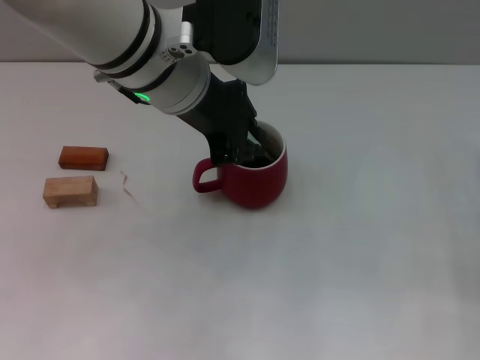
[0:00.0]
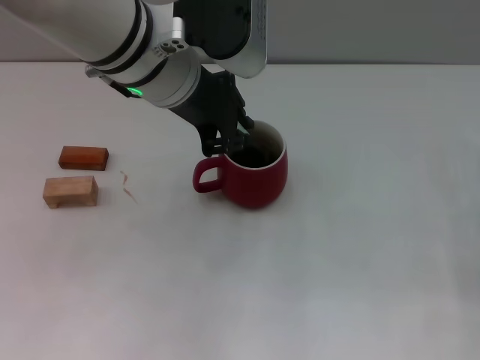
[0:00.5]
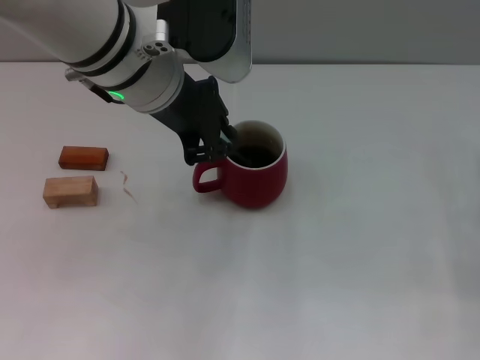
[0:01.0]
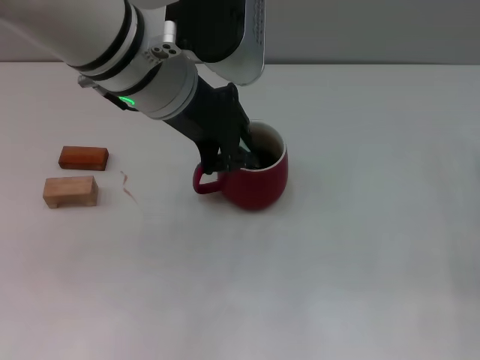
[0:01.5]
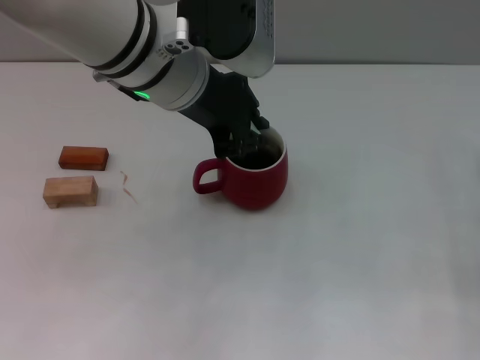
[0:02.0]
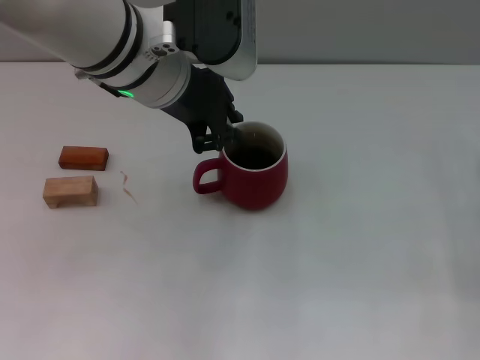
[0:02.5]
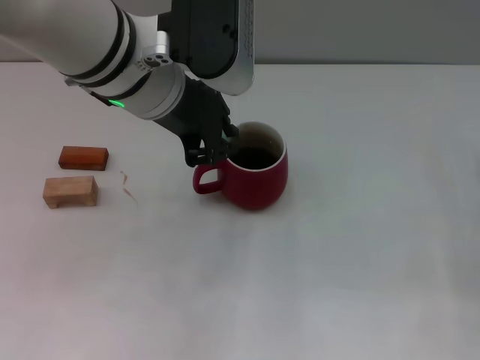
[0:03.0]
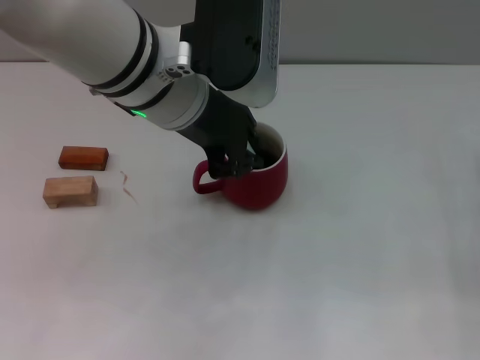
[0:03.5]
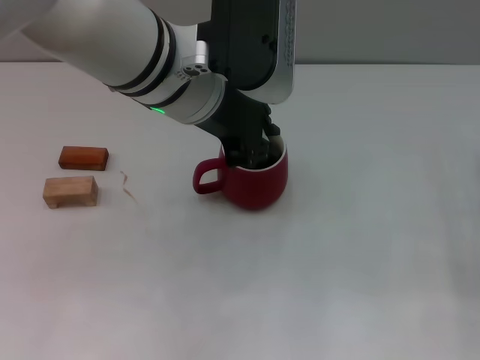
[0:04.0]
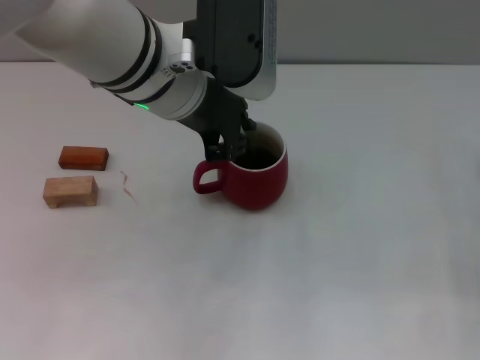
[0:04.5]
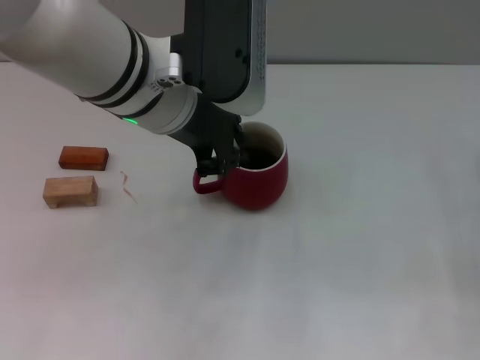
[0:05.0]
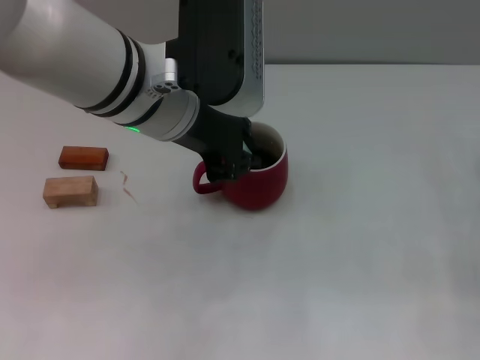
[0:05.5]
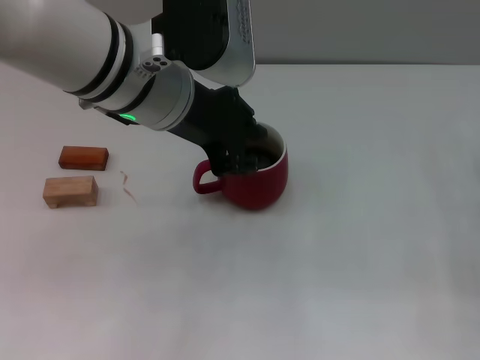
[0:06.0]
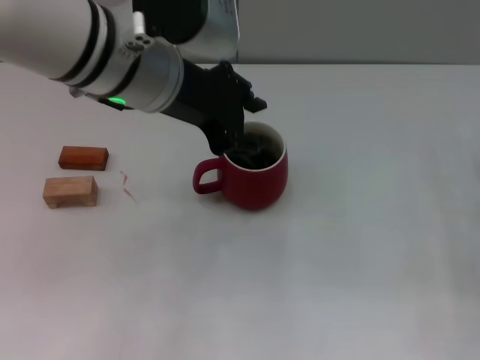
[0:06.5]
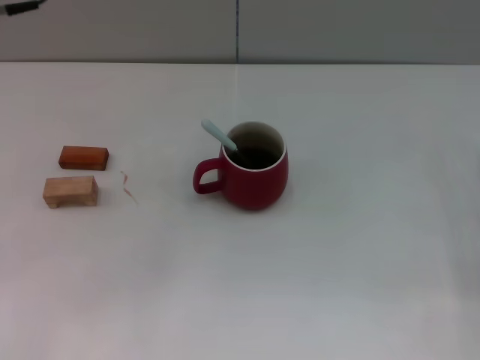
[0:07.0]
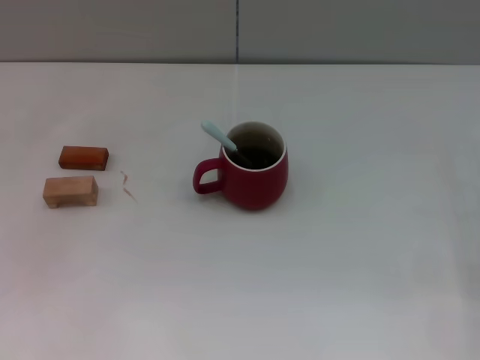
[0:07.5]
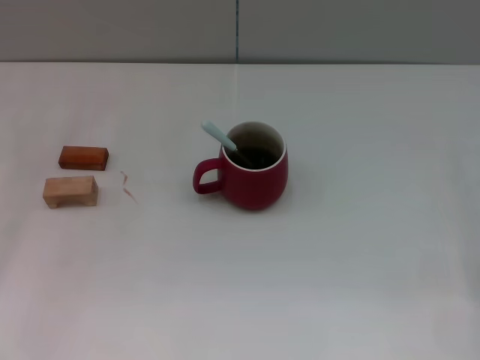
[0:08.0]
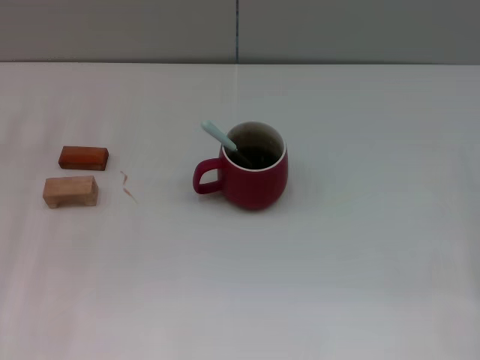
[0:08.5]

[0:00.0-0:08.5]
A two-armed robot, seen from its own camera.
Task of the whole recording: Move the red cup to the center, lift the blue spoon, stir it three times in the cup, and put the spoon into the cup.
Step, 0:00.0 to 0:06.5: Stir the coffee in the cup with the left gripper.
0:00.0 to 0:04.0: There are only small adjustments of the grippers.
0:04.0 to 0:06.5: The left gripper opens up.
0:06.5 to 0:08.5: The left gripper is displaced to the left and downward by roughly 25 cm.

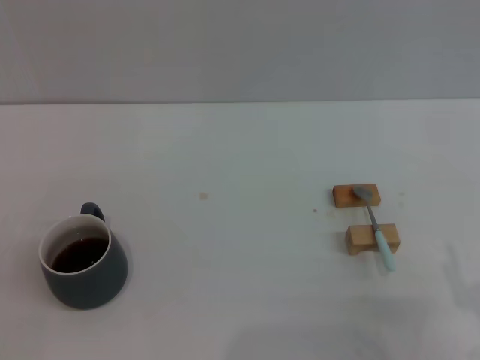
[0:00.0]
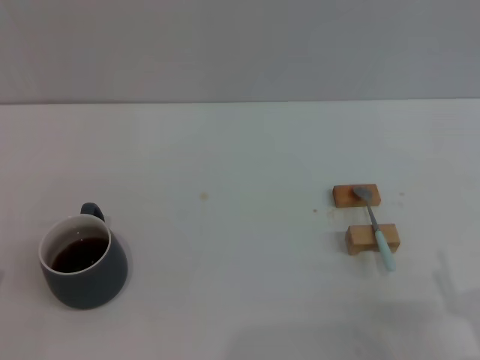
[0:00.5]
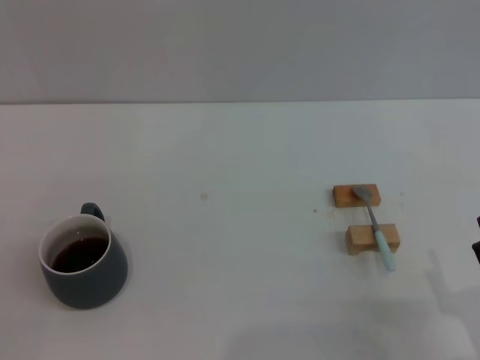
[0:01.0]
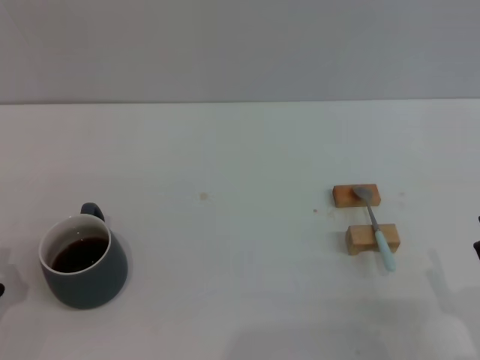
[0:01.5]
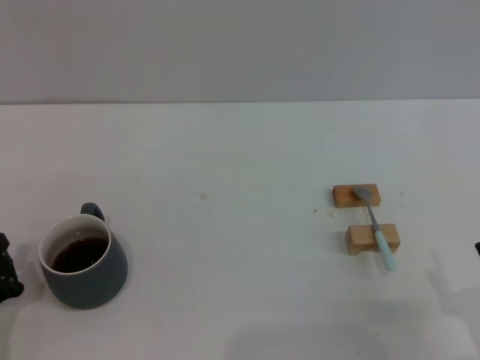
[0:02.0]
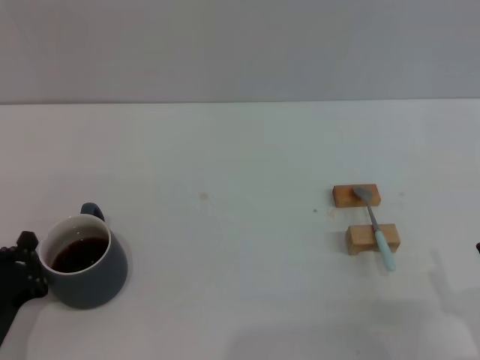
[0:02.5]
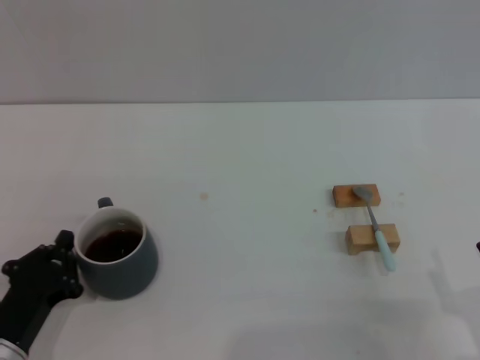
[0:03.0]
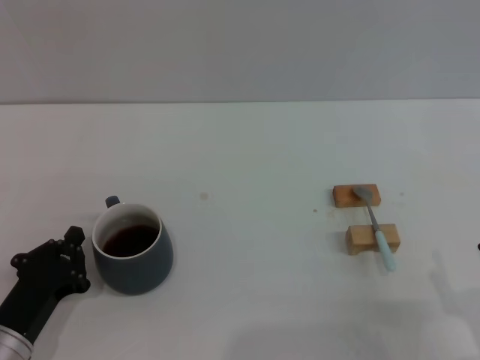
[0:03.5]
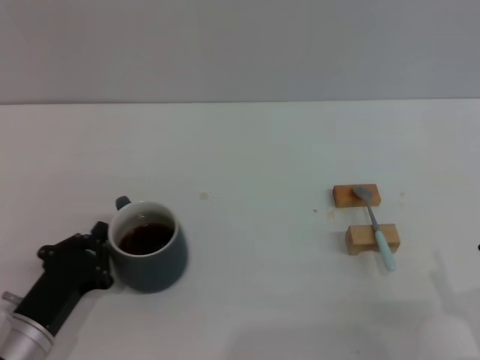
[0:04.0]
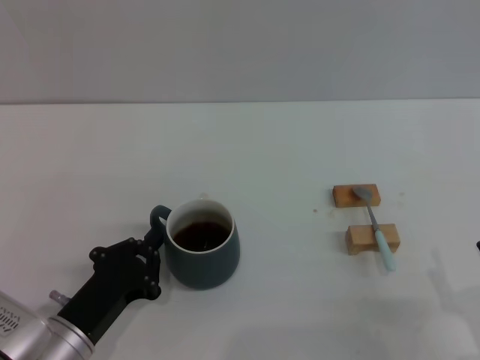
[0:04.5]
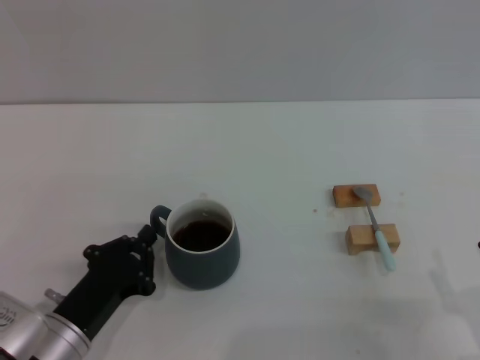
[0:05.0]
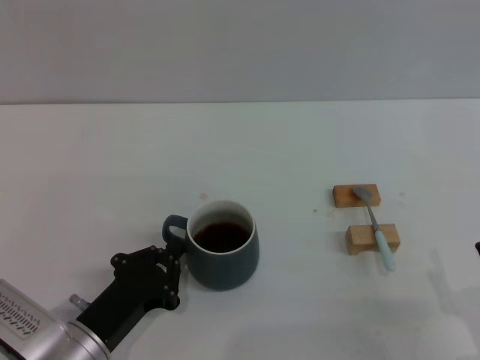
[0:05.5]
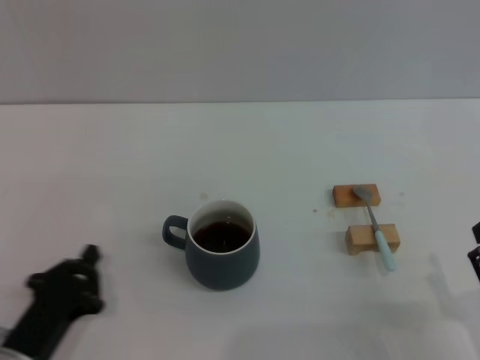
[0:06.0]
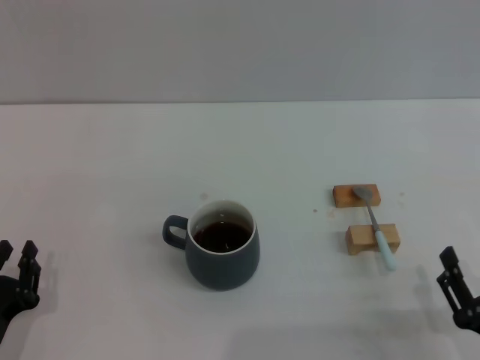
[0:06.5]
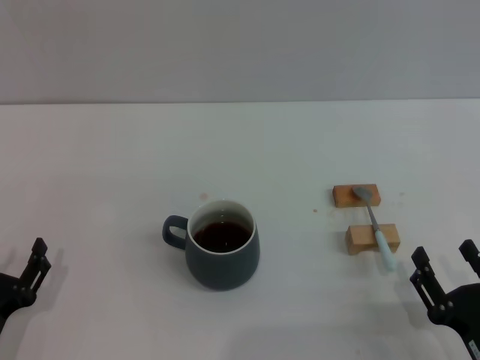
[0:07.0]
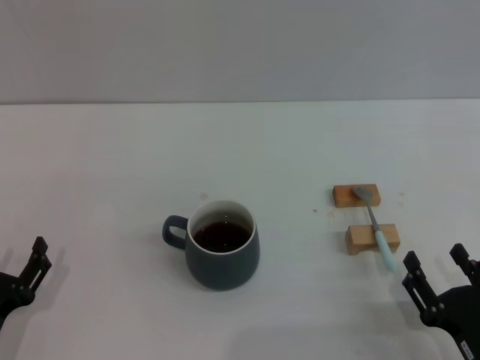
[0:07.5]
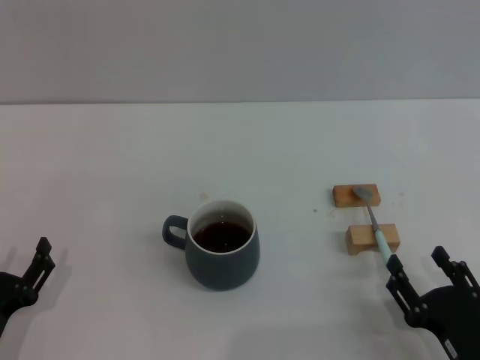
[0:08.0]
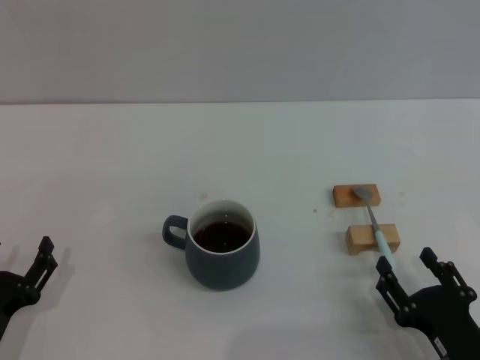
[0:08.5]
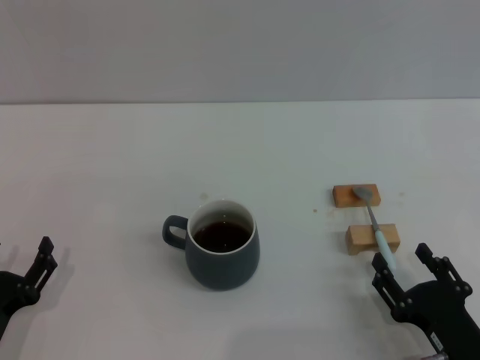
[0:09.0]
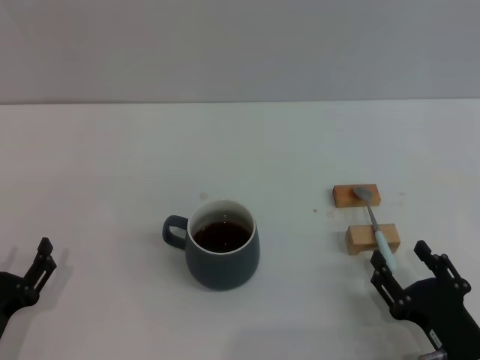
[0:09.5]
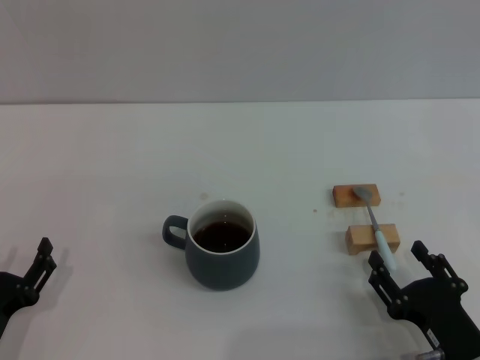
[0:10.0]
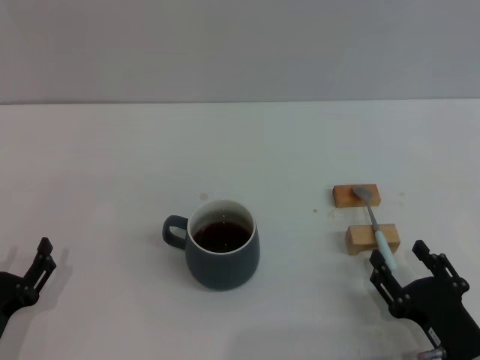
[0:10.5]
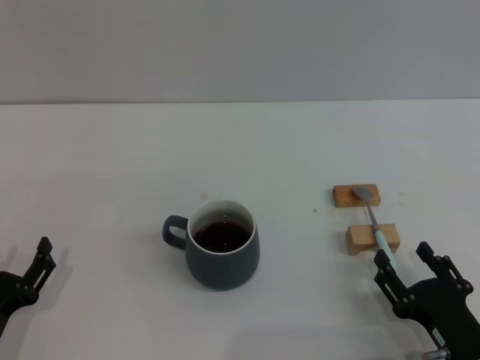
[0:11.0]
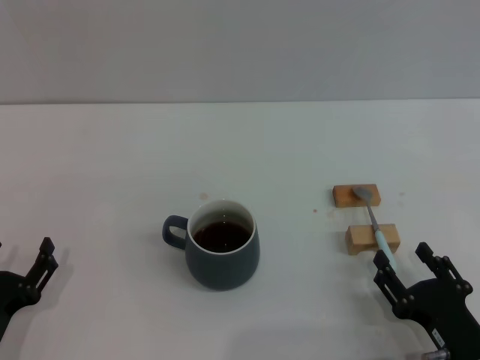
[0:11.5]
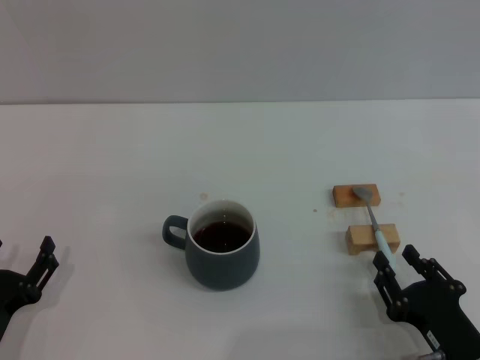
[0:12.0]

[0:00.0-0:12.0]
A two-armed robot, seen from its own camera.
Task of the whole recording: Move the grey cup to the center, lift the blue spoon, stir it three times in the cup, and put the spoon into the cup.
Step, 0:00.0 to 0:05.5: Move the cup with coffee to the center of view with the left gripper.
0:00.0 to 0:02.0: The left gripper shifts by about 5 cm, and closes.
0:02.0 to 0:04.0: The left gripper travels to the right by some 5 cm.
0:04.0 to 0:06.0: The grippers move only a little.
0:06.0 to 0:08.0: The left gripper opens up.
0:08.0 to 0:10.0: The grippers make only small movements.
0:10.0 to 0:12.0: The two grippers keep their place.

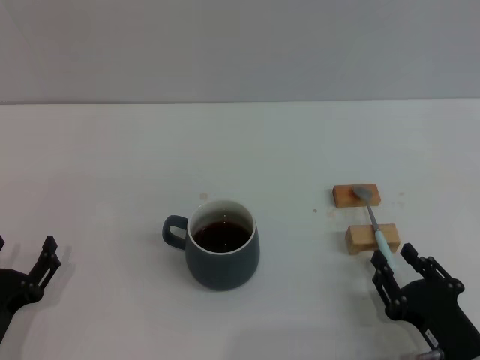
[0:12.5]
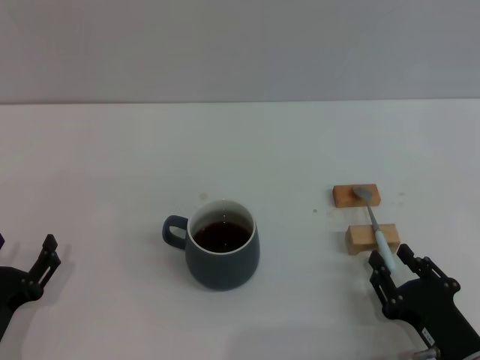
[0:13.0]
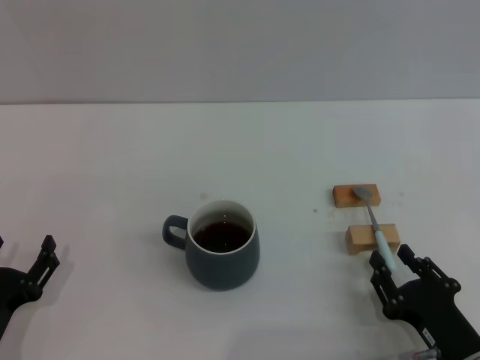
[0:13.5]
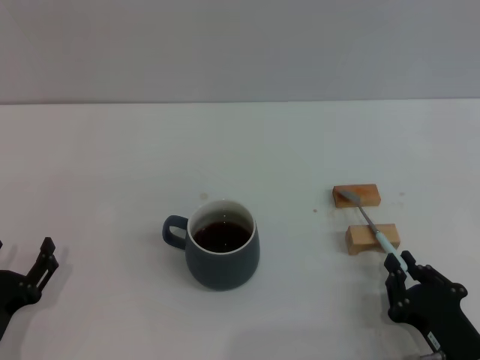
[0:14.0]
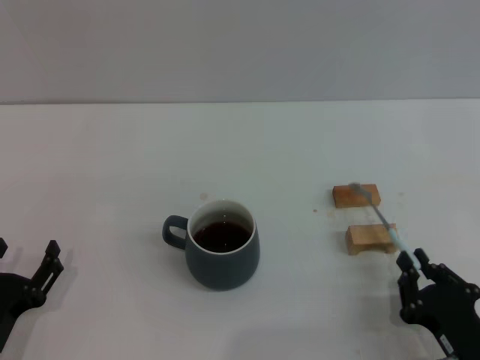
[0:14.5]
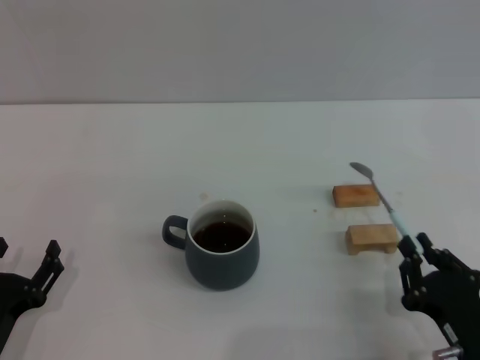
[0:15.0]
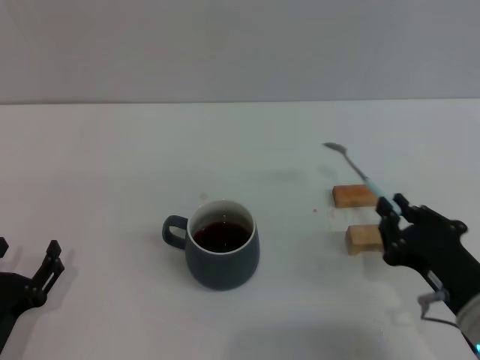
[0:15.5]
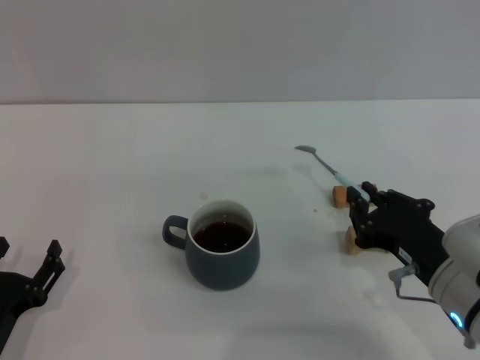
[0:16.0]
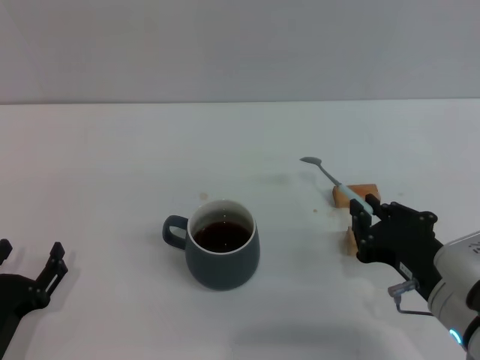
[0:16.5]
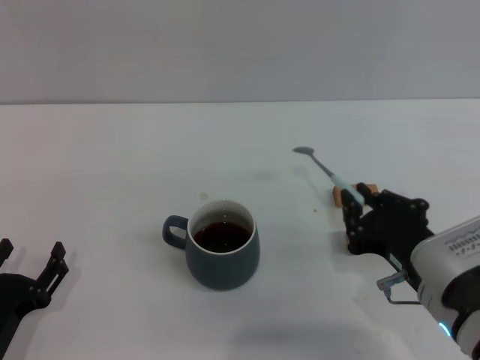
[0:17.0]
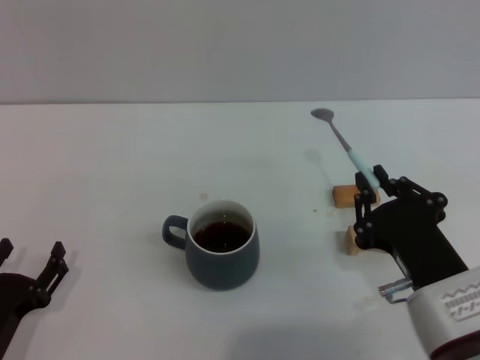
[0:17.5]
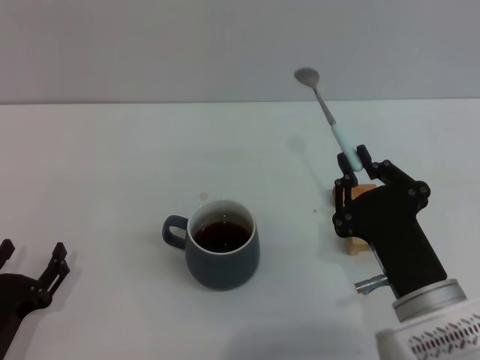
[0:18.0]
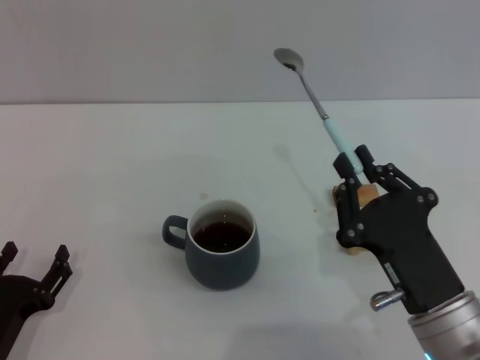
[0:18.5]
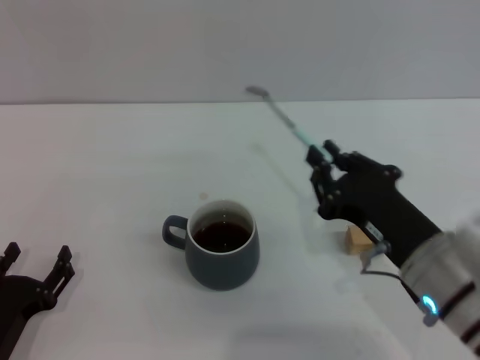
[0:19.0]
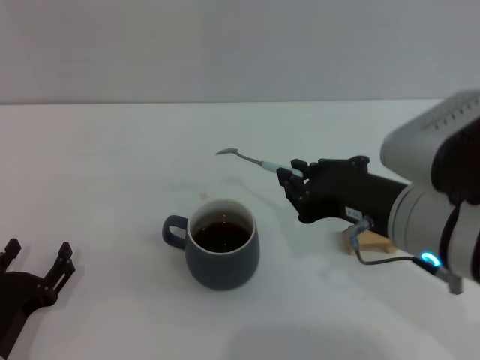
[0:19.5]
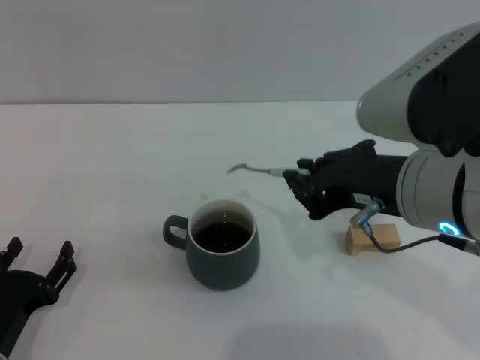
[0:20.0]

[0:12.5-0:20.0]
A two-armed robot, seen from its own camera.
Task of the whole recording: Move the grey cup to the center, lift the blue spoon, stir it three times in the cup, and put the spoon into the cup.
Step, 0:12.5 to 0:15.0: Pick up the spoon with the right gripper.
0:12.5 to 0:14.5: The right gripper closes.
0:14.5 to 0:16.5: The right gripper travels upward and forward by about 10 cm.
0:18.0 to 0:20.0: The right gripper shifts approximately 15 cm upward.
